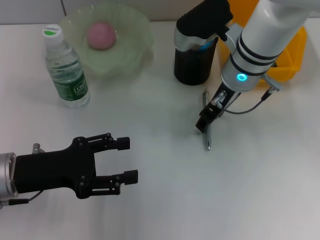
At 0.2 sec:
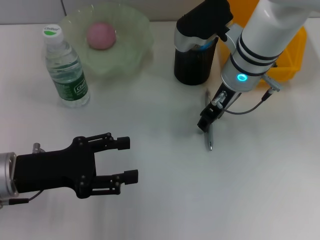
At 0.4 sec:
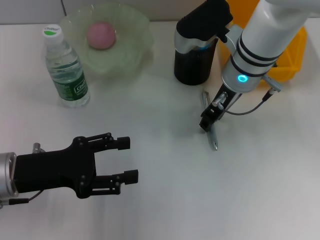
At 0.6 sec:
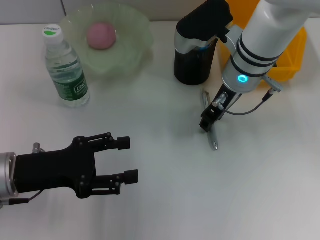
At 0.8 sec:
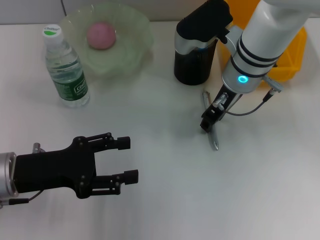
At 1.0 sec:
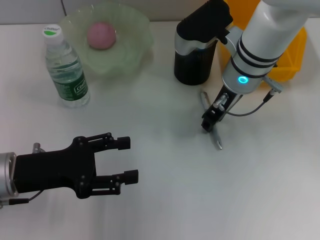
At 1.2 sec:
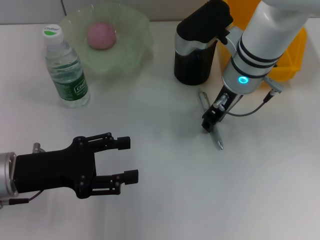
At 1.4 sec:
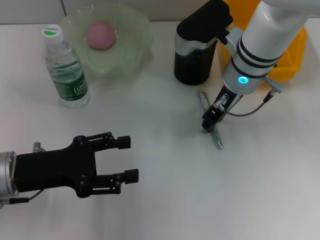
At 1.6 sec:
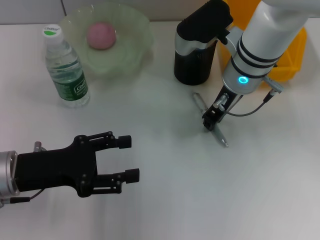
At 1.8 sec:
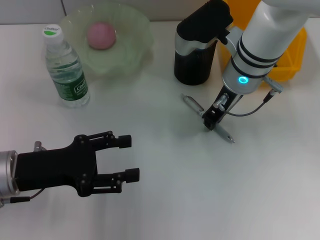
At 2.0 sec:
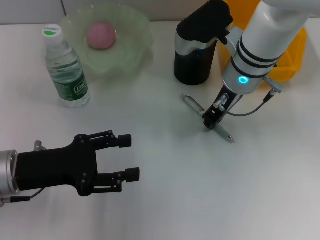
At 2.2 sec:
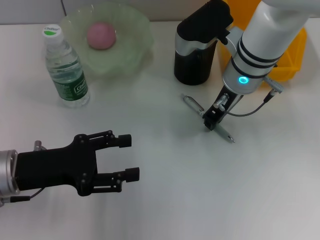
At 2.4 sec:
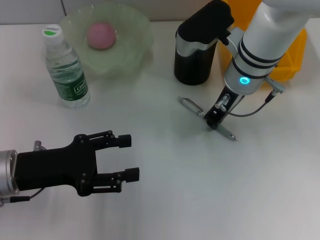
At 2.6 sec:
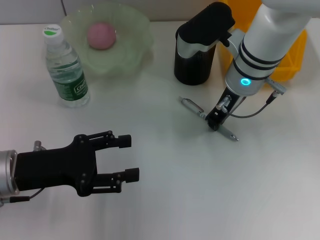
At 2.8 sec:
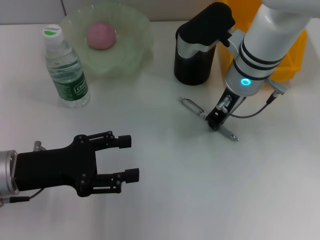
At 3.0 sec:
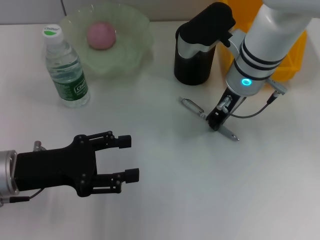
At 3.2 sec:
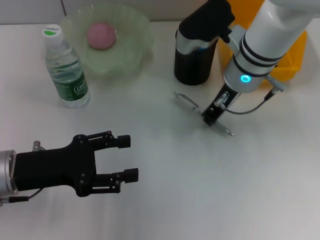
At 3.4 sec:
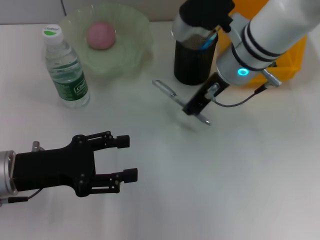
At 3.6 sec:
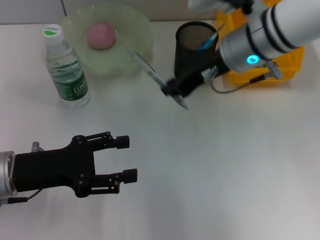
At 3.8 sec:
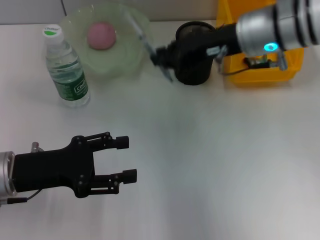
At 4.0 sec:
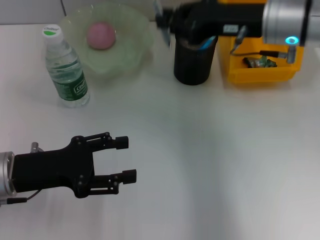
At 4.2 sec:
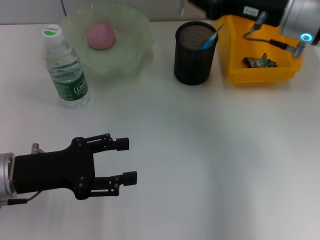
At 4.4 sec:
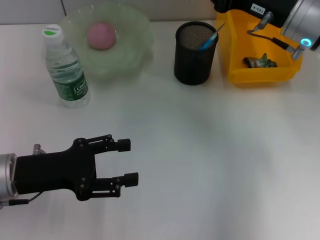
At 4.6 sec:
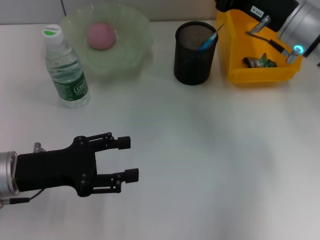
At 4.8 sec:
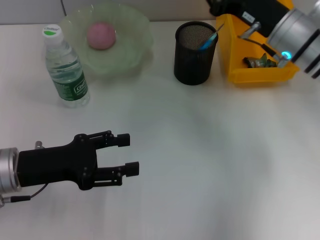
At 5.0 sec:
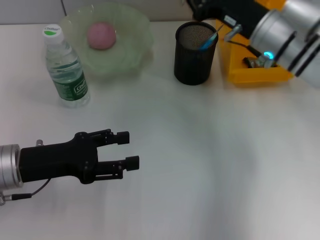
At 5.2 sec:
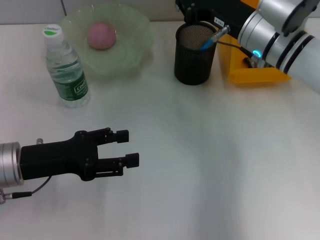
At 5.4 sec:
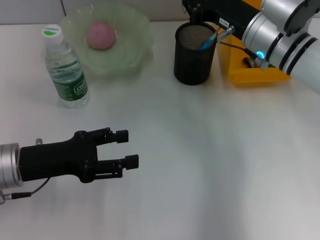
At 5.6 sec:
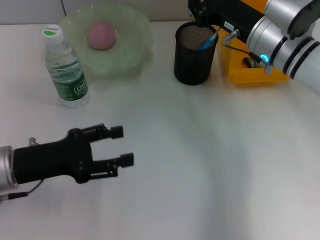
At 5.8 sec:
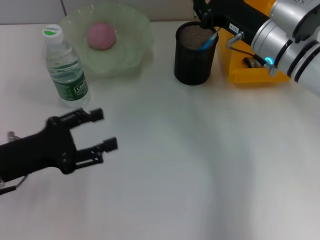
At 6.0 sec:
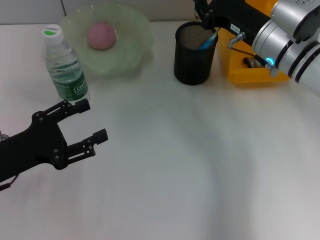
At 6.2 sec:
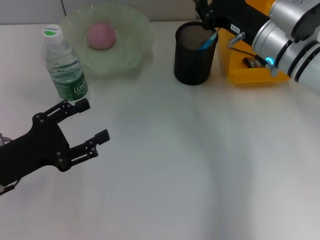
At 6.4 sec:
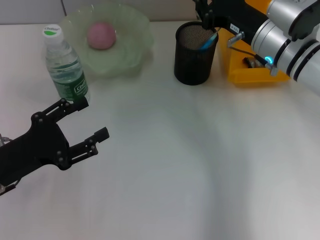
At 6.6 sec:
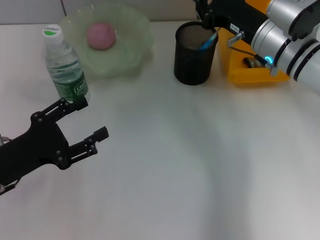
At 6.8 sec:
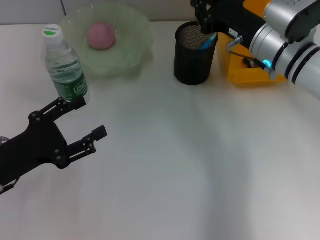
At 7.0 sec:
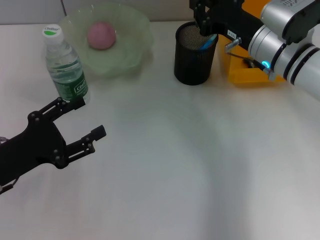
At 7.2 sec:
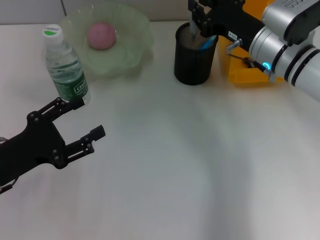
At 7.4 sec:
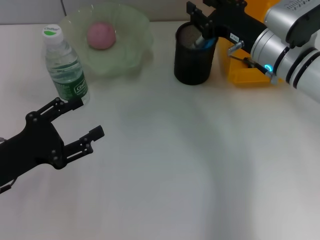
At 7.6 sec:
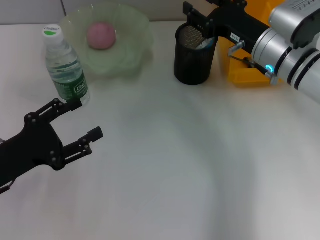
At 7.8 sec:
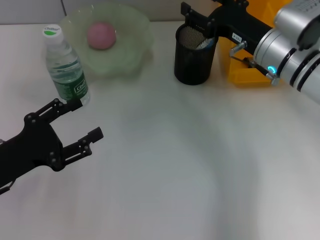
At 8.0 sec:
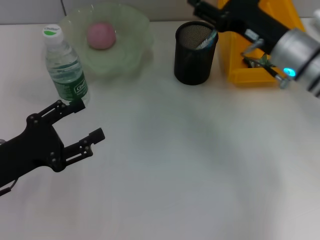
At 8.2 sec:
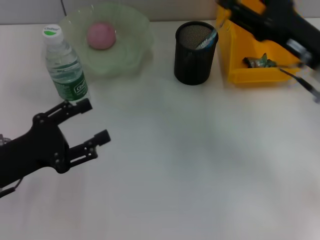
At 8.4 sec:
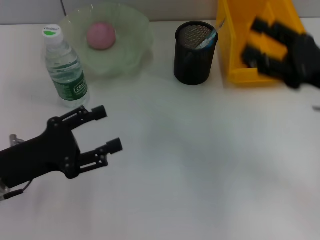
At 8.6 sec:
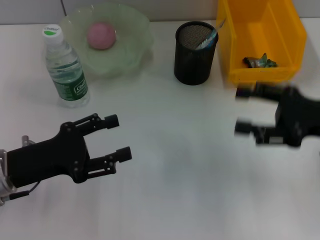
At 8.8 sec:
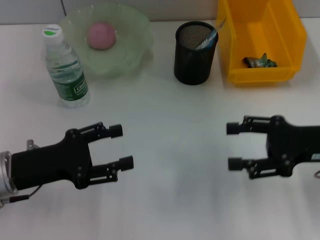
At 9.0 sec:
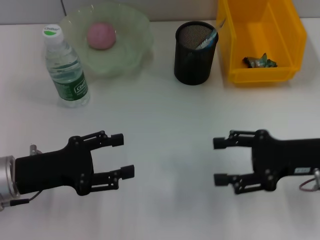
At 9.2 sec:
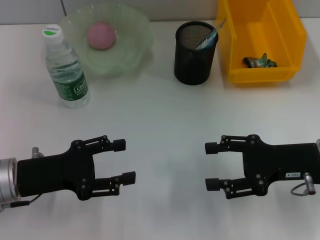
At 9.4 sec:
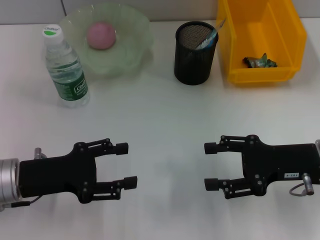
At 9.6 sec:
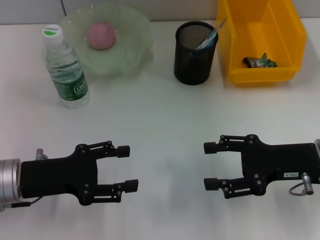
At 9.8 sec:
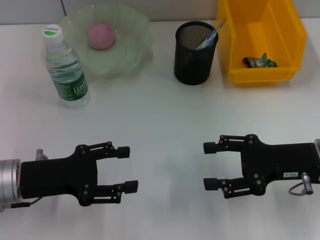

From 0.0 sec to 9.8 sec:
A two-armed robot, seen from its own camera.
Step, from 0.0 sec to 2.6 sec: Grab the gray spring-action pen with the right hand.
Step, from 3.0 sec to 7.2 sec: Place the gray spring-action pen into the pen holder with the right hand.
From 0.0 sec to 1.4 sec: The right gripper closes up.
From 1.4 sec to 2.8 sec: Both grippers stay put.
From 2.8 sec to 4.2 sec: The right gripper heads to the right, covering roughly 10 cm.
From 4.2 sec to 5.6 sec: The right gripper heads downward, covering about 5 cm.
From 7.0 sec to 8.4 sec: The right gripper goes some 15 cm to the right and backward, and opens its fingers.
From 8.4 sec to 9.8 sec: The right gripper heads downward, covering about 5 cm.

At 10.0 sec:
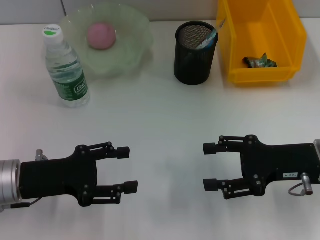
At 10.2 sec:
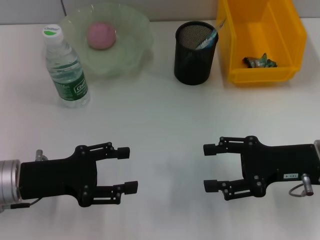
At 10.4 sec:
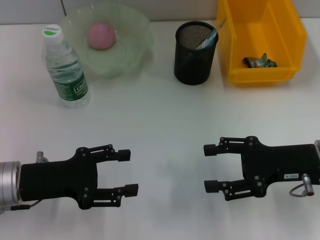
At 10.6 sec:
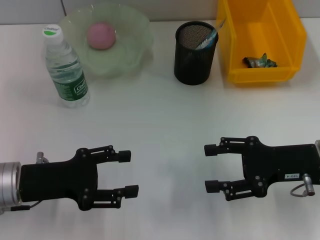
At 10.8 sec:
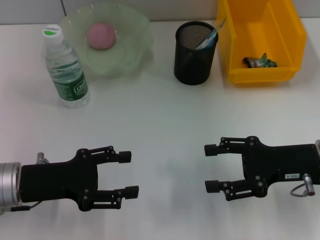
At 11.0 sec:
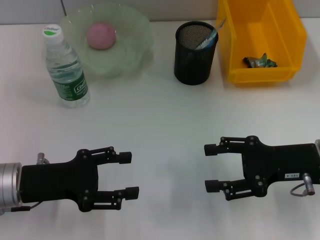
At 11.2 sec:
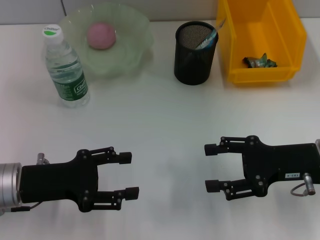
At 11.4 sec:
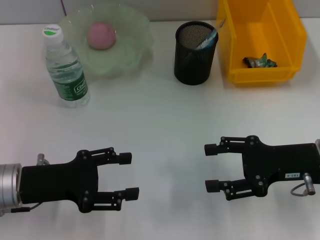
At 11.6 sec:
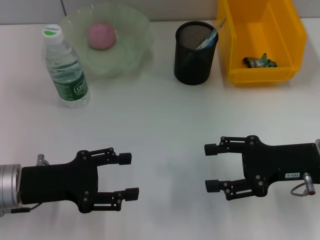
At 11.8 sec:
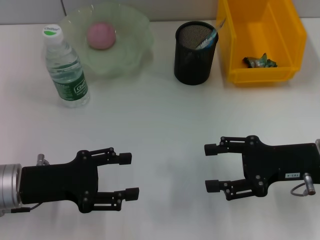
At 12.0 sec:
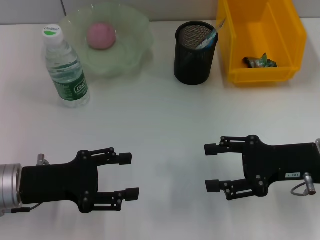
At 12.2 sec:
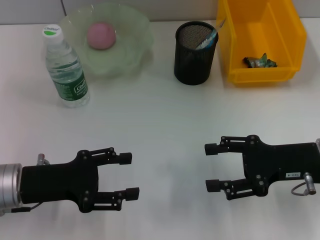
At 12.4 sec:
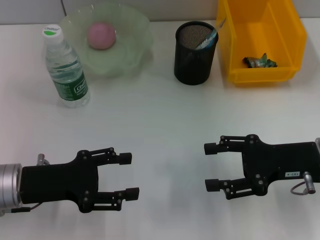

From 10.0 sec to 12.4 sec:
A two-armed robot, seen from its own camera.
From 10.0 sec to 12.4 sec: Both grippers stay about where they are.
